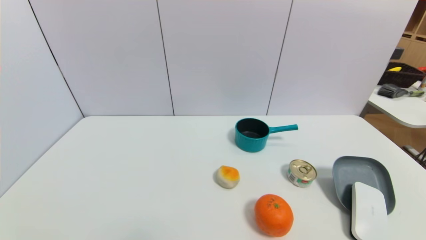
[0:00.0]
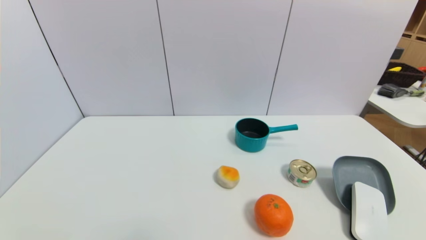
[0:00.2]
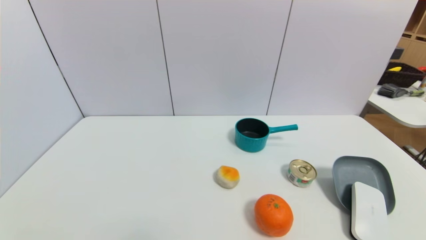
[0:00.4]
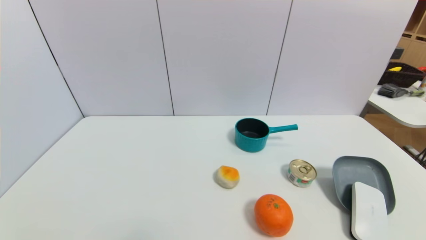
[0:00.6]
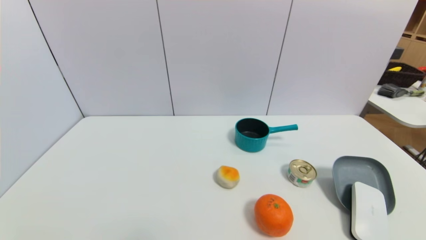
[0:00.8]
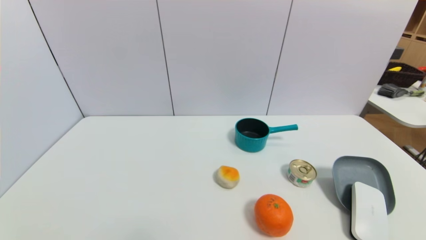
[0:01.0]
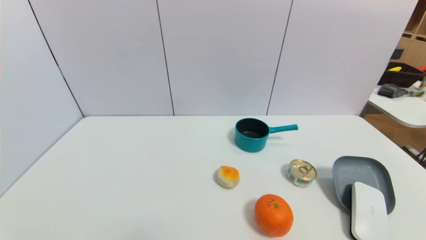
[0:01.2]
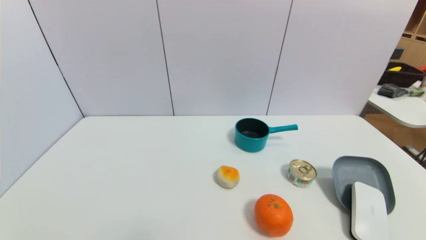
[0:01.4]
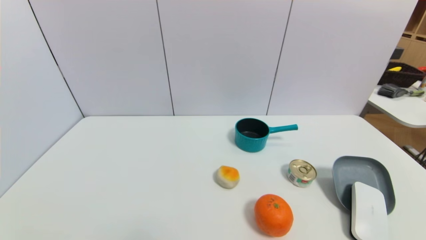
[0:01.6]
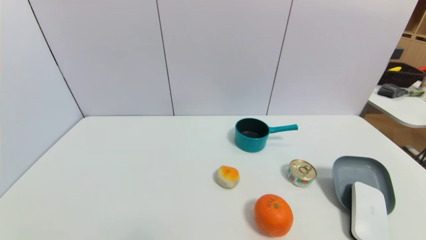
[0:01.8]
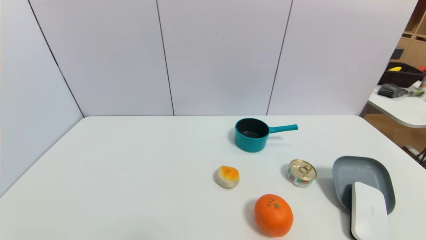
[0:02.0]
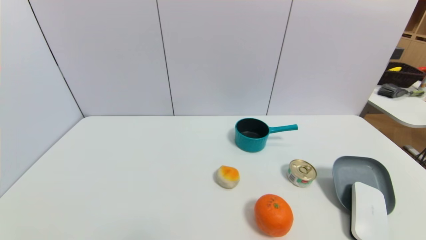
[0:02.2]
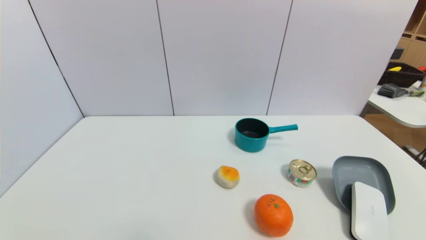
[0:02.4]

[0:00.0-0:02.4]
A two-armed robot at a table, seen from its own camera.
Task of the whole recording: use a gripper to pick the target object and place on the dish.
0:01.2 to 0:02.4: Both grippers stay put.
